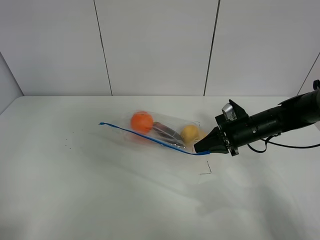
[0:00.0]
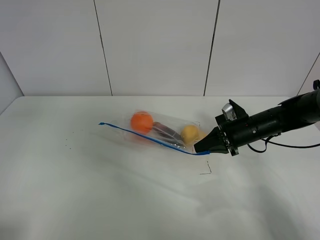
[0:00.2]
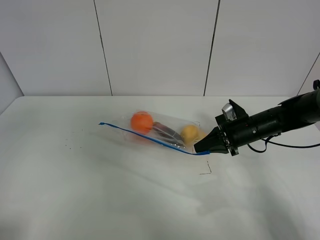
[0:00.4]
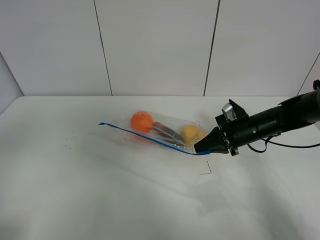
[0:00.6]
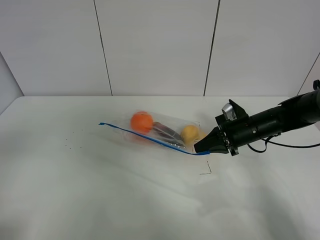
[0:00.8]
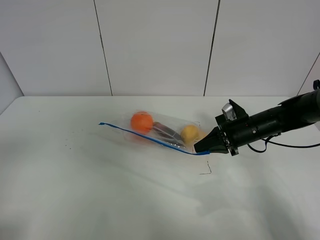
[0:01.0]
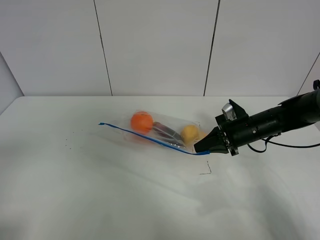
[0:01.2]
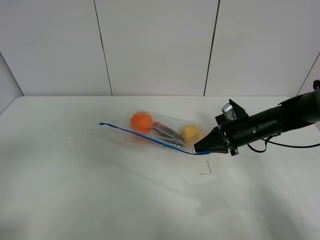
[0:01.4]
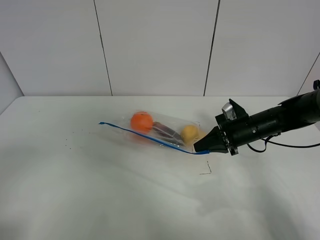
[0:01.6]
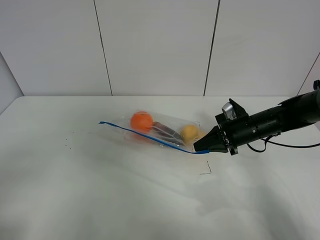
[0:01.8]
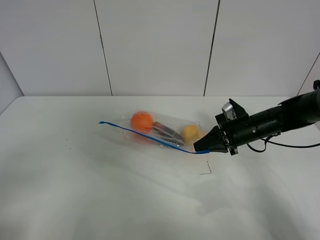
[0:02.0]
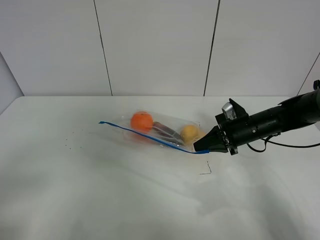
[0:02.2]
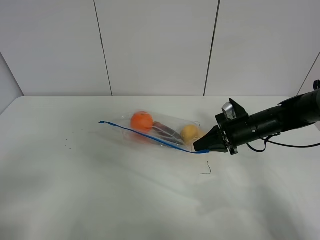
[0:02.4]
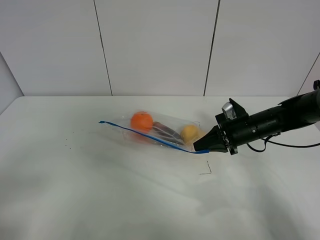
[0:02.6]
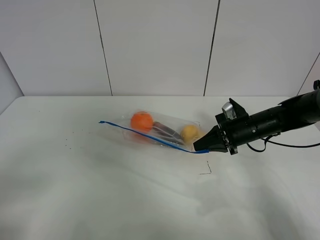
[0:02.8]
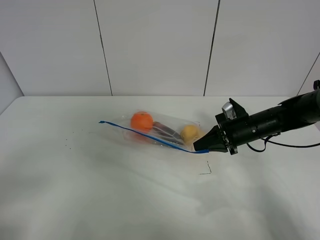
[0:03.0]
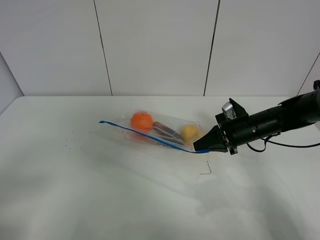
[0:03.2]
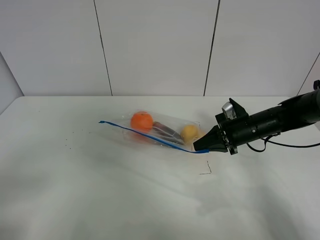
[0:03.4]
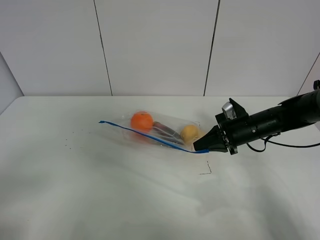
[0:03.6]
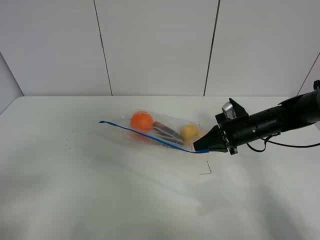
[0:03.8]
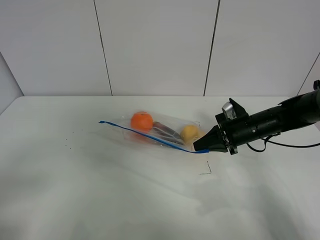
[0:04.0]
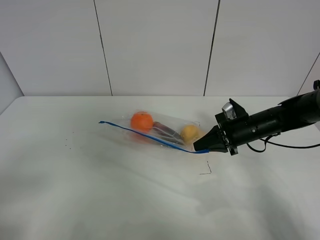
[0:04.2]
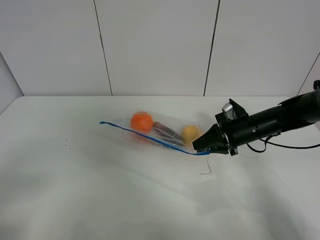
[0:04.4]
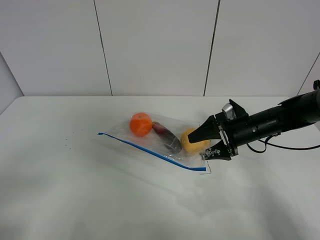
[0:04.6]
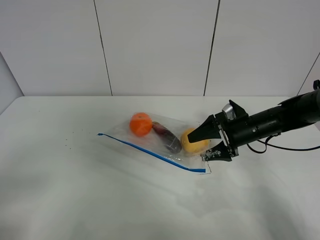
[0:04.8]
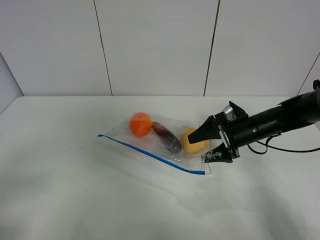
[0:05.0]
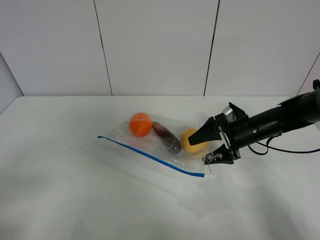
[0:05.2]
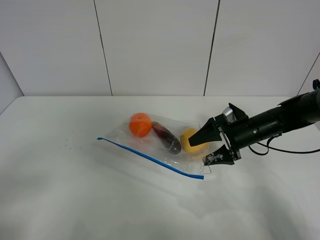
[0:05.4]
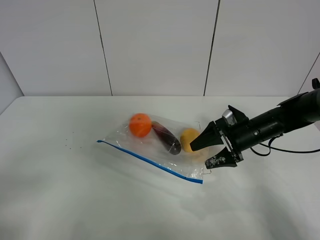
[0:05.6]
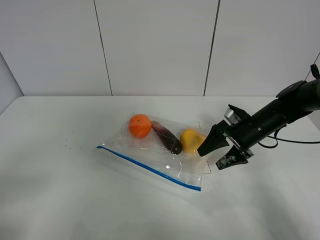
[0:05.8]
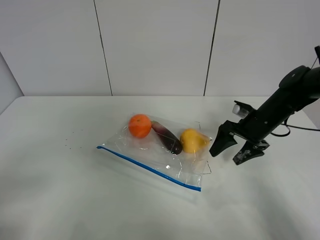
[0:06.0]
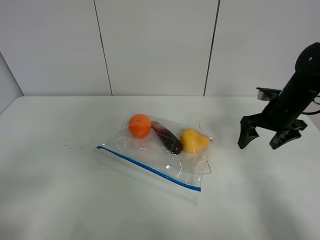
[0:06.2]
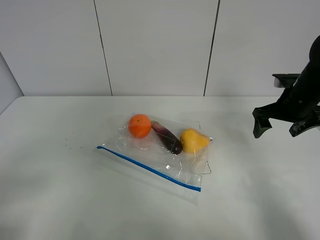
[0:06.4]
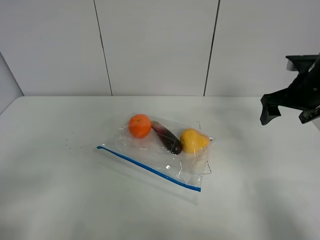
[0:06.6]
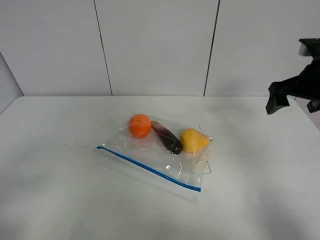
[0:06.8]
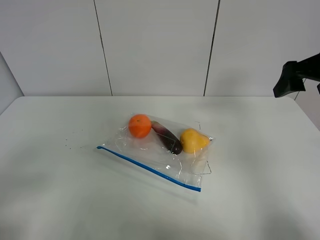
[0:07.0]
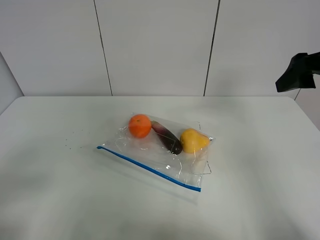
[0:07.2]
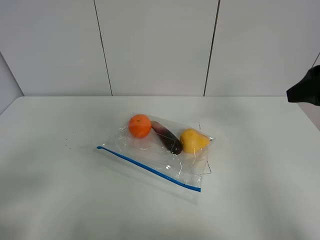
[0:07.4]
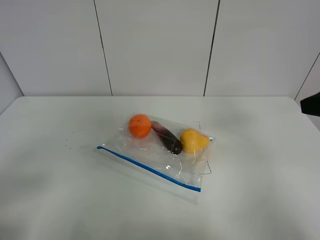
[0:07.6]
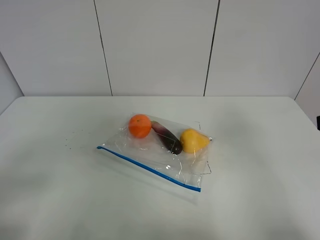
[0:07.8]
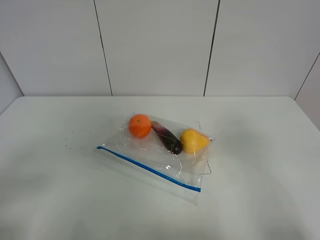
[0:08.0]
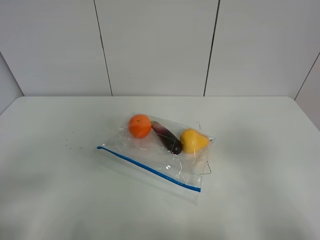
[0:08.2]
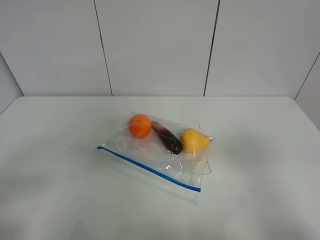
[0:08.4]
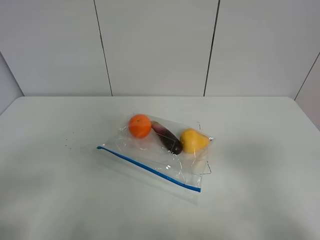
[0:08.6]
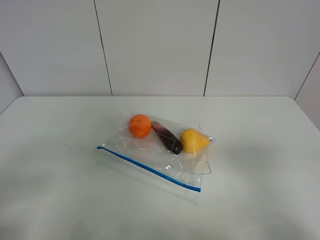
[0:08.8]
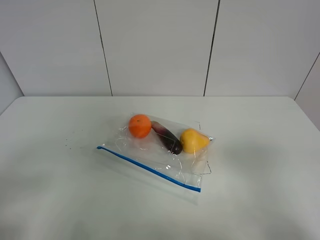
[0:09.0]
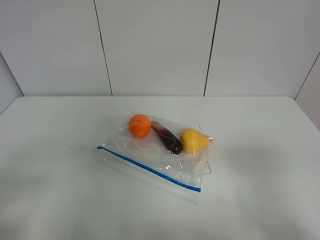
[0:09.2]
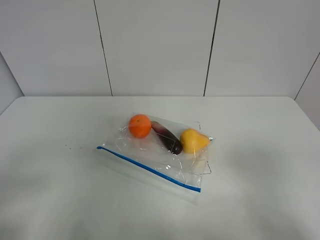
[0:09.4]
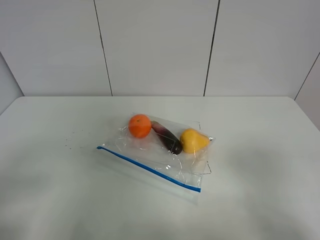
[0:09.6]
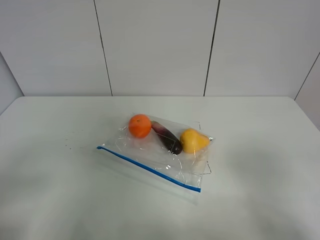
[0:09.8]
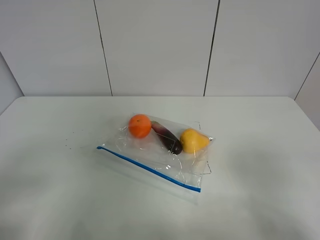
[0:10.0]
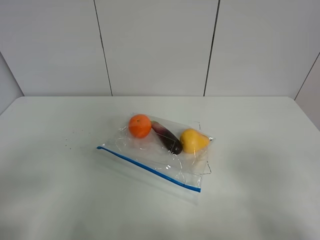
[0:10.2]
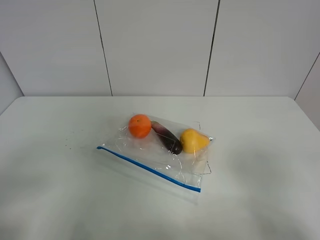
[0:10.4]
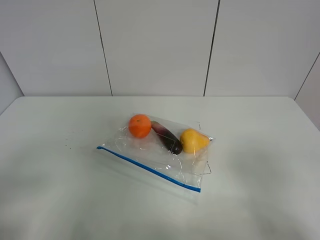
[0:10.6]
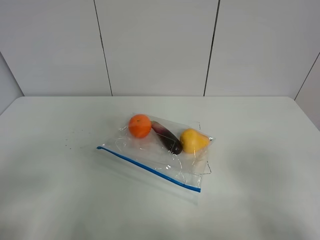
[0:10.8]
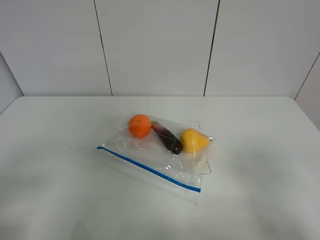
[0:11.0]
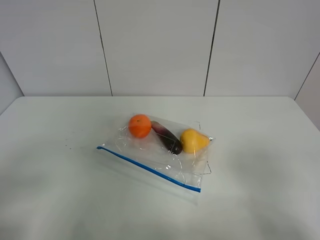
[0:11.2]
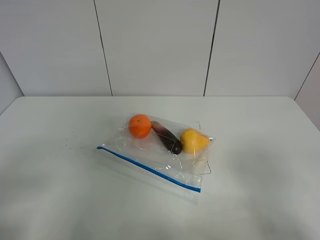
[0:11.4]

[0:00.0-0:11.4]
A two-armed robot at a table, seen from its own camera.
Step, 0:00.0 to 0:06.0: Place the fruit bag with right gripper.
0:01.4 to 0:02.8: The left gripper moves downward, roughly 10 cm.
0:02.8 to 0:04.2: The two grippers keep their place.
0:04.2 to 0:05.6: The right gripper opens up.
0:05.6 to 0:07.2: The right gripper goes roughly 25 cm upward and backward.
0:07.2 to 0:08.6: The right gripper goes about 25 cm backward.
0:10.0 to 0:11.4: The two grippers keep their place.

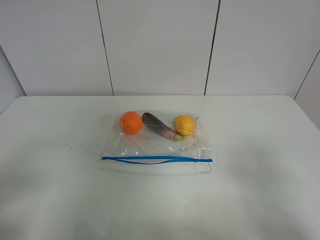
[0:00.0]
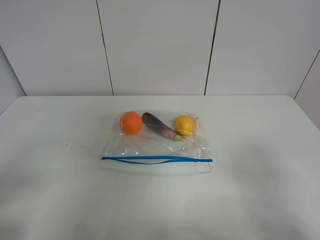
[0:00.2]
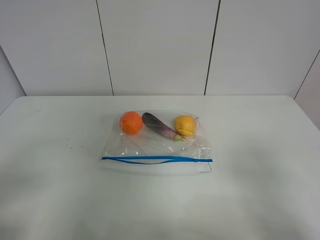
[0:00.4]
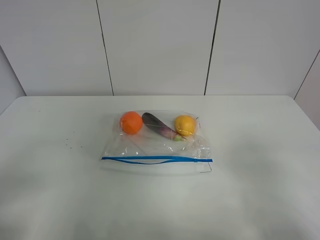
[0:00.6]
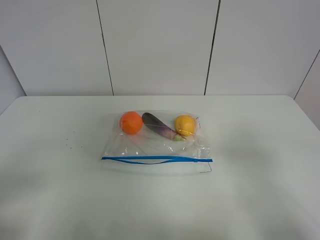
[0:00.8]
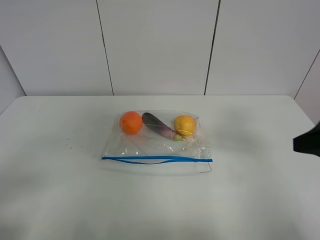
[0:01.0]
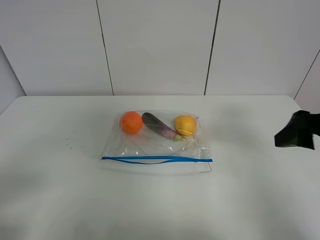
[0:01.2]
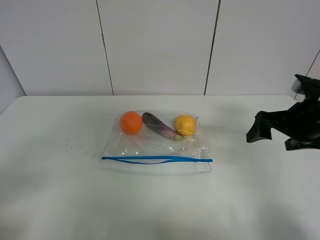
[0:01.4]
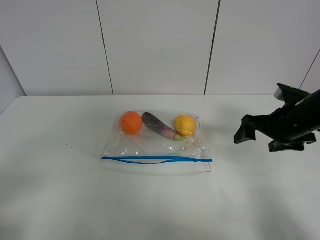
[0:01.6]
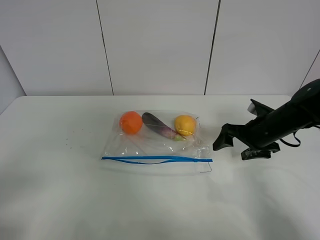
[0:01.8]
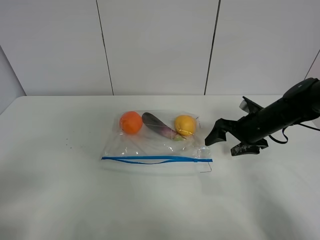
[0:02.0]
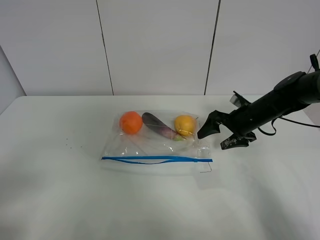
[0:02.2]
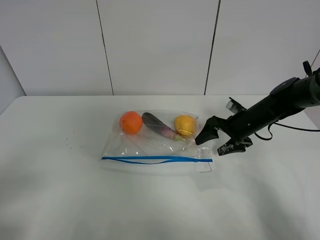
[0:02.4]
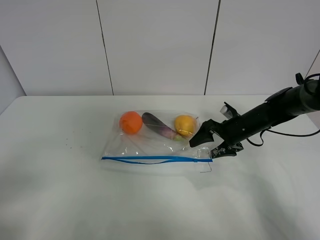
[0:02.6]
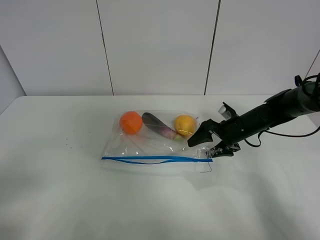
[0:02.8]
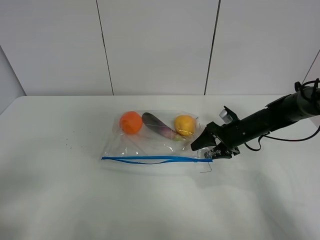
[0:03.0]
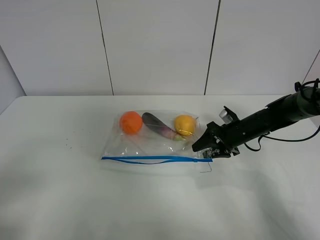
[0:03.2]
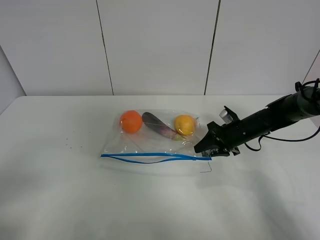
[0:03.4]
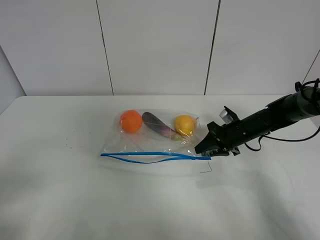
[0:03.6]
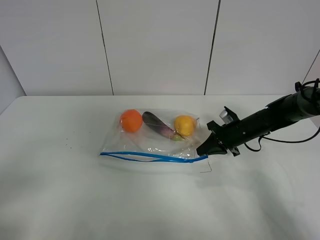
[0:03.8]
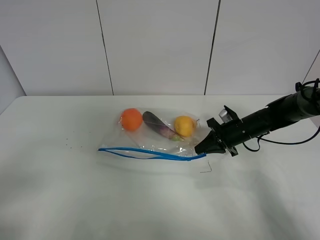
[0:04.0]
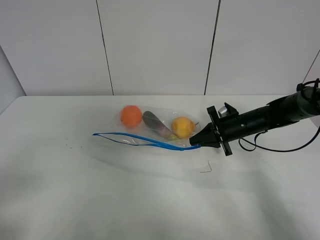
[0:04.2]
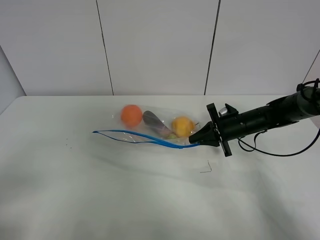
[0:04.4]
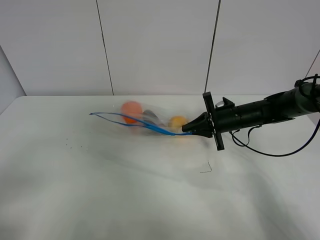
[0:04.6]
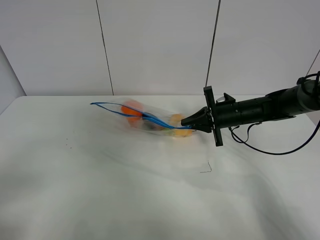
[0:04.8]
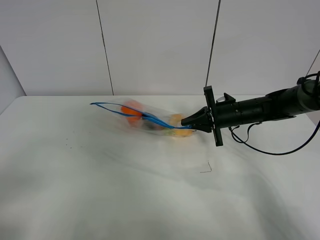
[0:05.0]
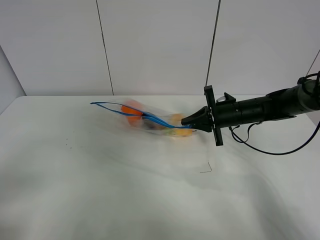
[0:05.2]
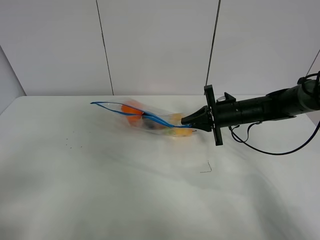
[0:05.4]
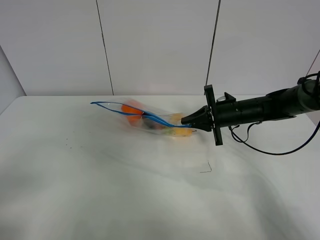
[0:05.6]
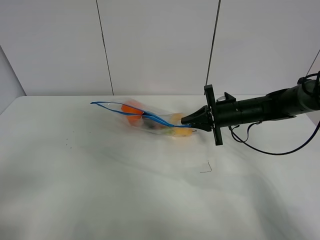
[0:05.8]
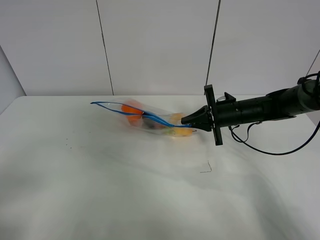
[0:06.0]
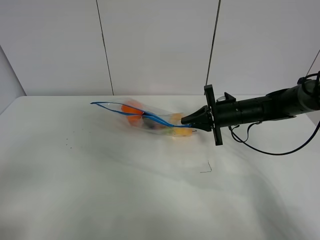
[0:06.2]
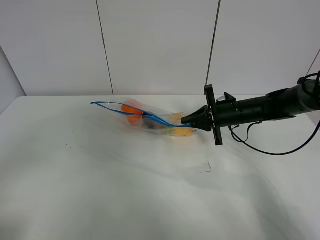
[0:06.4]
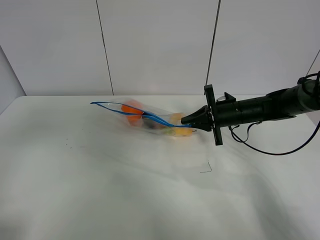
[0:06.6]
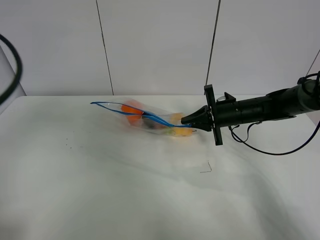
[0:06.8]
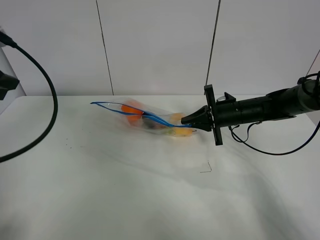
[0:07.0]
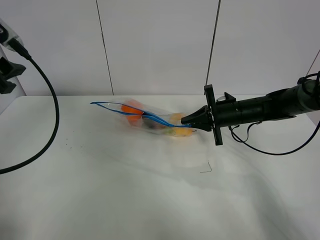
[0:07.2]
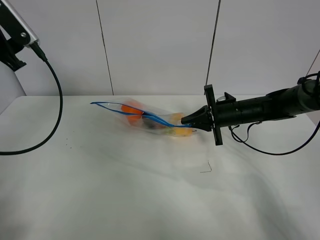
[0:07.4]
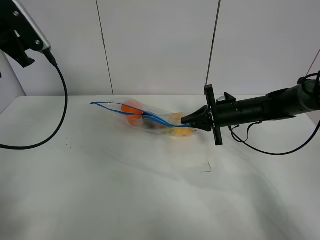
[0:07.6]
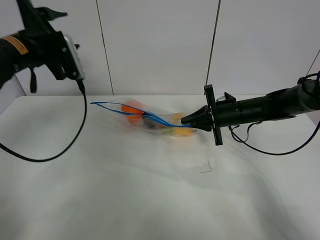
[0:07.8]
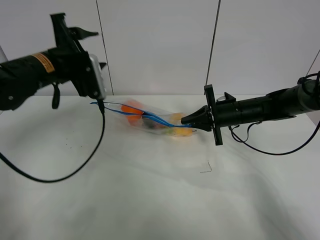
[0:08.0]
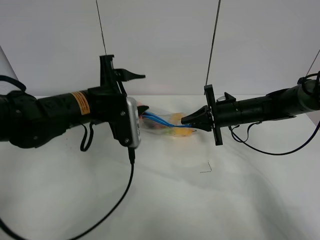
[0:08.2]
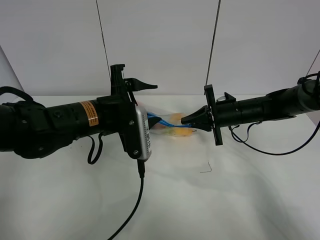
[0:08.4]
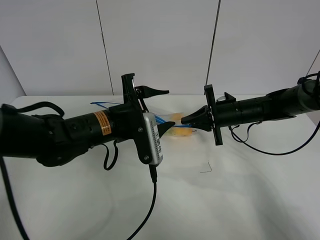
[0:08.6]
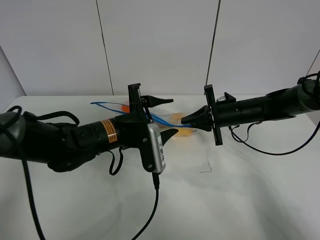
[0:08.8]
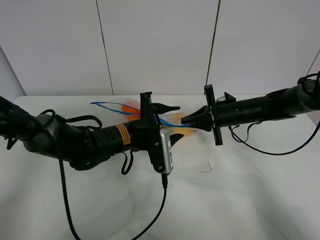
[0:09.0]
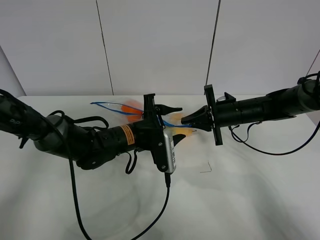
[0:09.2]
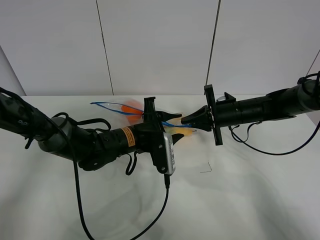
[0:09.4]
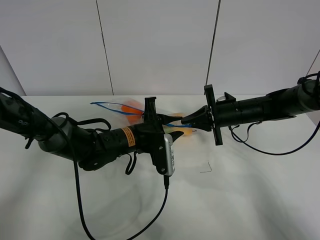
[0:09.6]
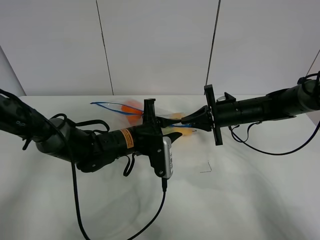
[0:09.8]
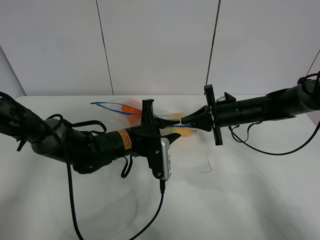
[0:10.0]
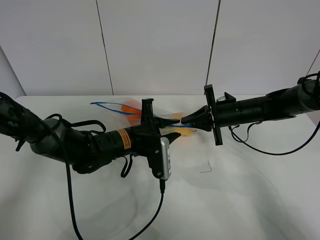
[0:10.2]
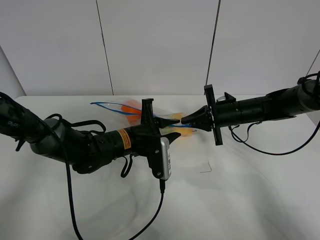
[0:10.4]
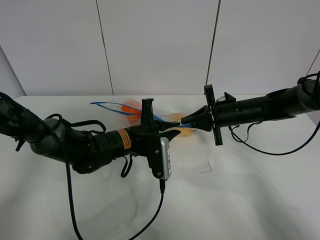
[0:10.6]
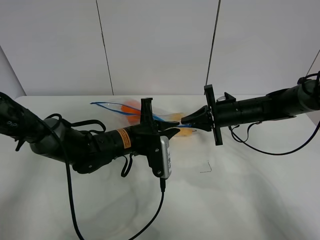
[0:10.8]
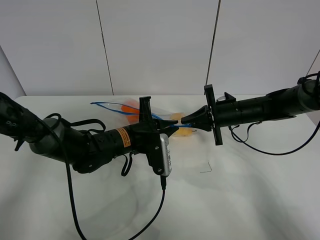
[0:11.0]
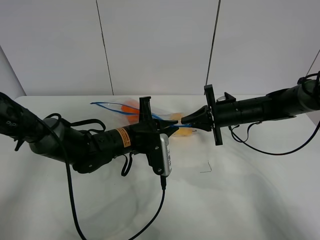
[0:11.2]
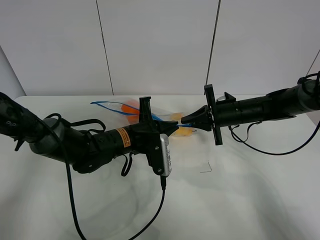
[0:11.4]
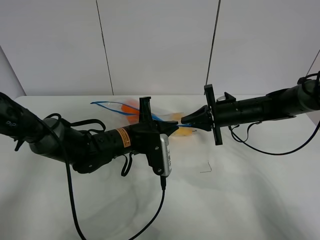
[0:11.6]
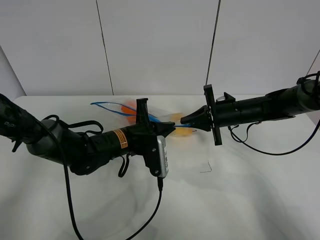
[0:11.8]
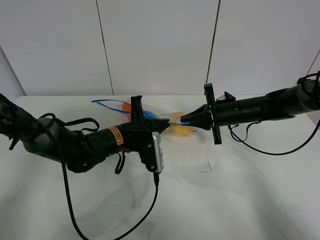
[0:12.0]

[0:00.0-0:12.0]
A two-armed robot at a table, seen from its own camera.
Step, 0:00.0 to 0:03.6: Grasp the fruit bag with right gripper.
Step, 0:03.8 to 0:05.4: Lift the fruit bag with your right gripper.
0:00.0 to 0:01.6: The right gripper shifts some 30 cm forward.
0:01.6 to 0:03.0: The right gripper travels downward and forward by some 15 cm.
0:03.0 to 0:04.4: The right gripper closes up.
0:04.4 to 0:06.0: The grippers make only small movements.
0:06.0 to 0:07.6: The left gripper heads forward, covering roughly 30 cm.
0:07.6 to 0:09.0: The left gripper moves to the right and downward, about 30 cm.
0:09.0 to 0:10.4: The left gripper closes its fingers.
0:10.4 to 0:12.0: The left gripper closes its fingers.
